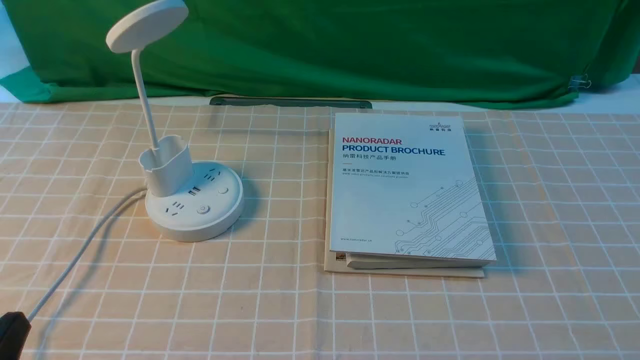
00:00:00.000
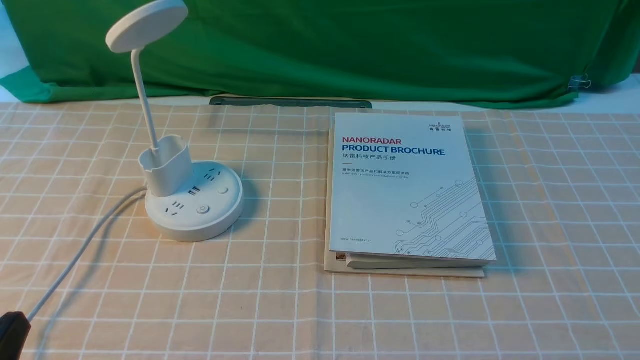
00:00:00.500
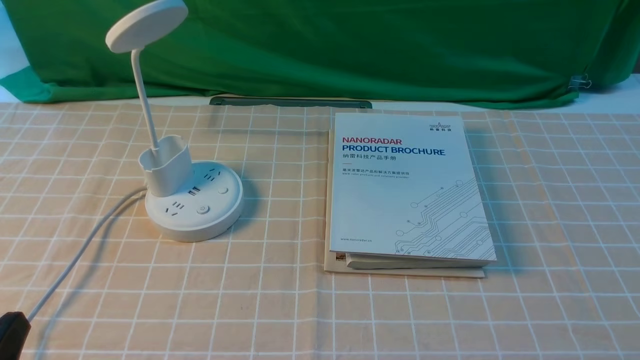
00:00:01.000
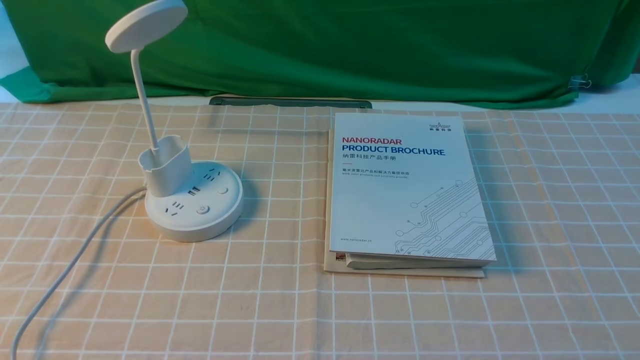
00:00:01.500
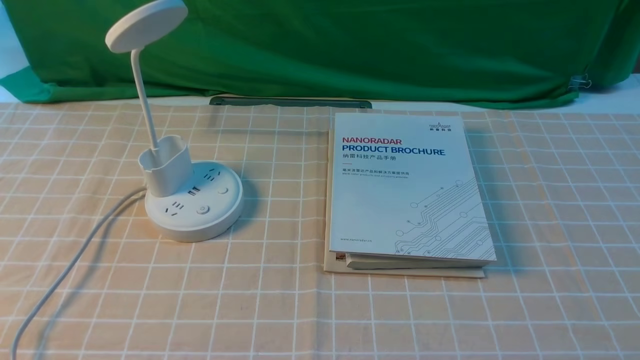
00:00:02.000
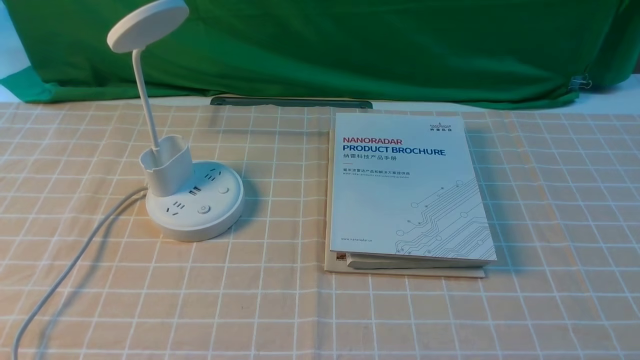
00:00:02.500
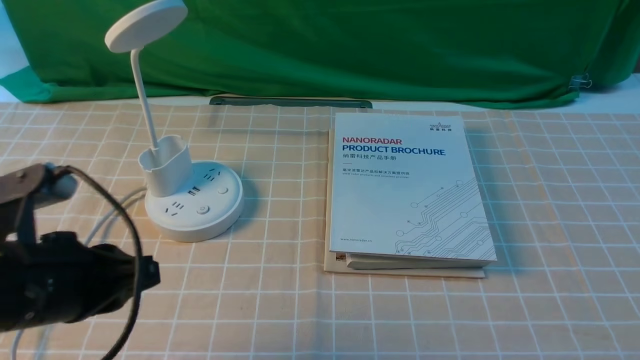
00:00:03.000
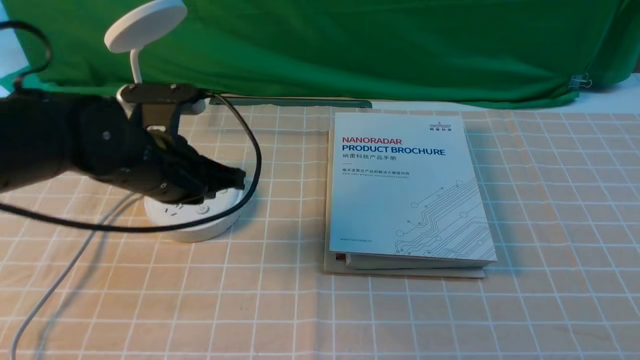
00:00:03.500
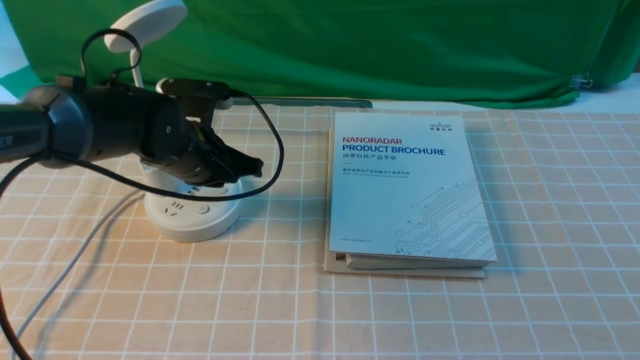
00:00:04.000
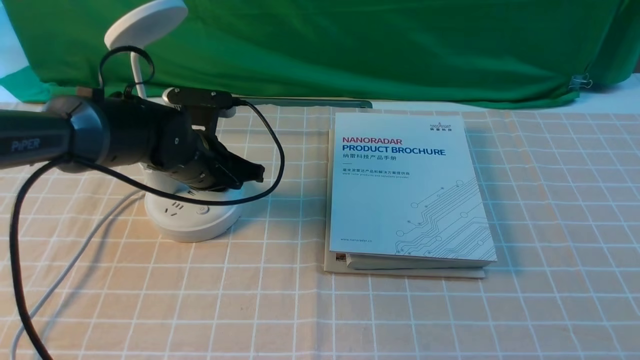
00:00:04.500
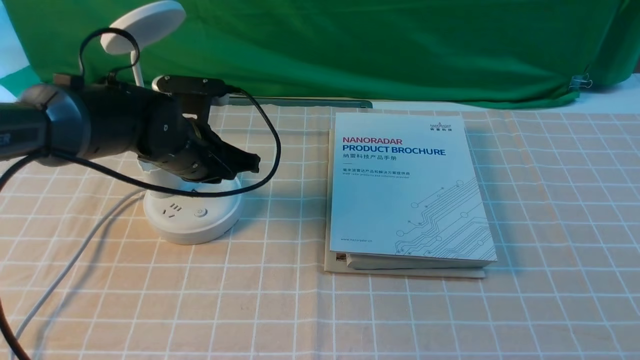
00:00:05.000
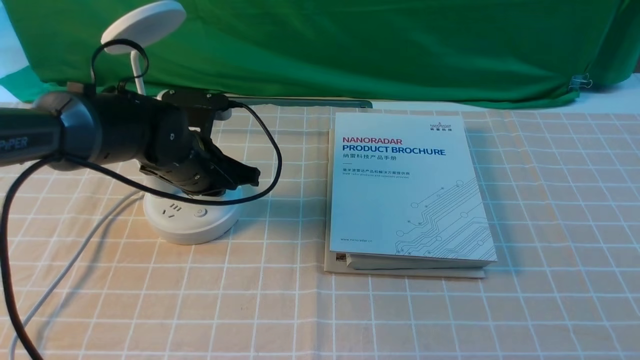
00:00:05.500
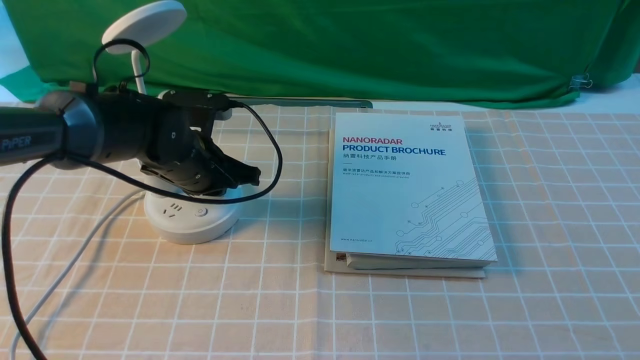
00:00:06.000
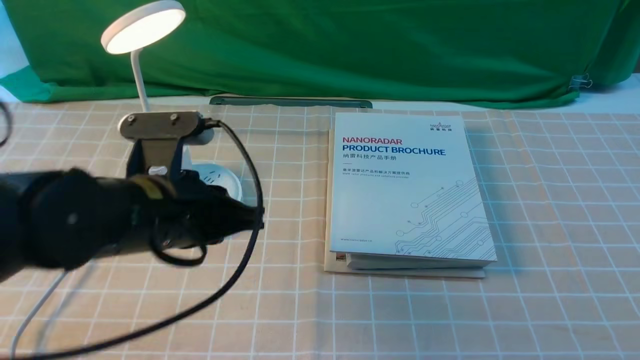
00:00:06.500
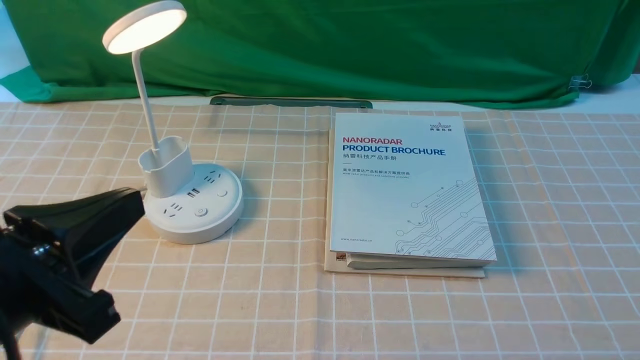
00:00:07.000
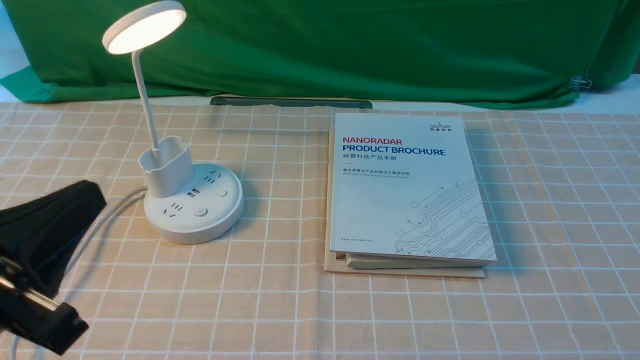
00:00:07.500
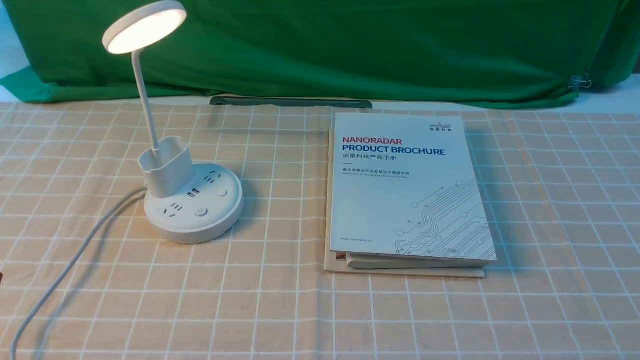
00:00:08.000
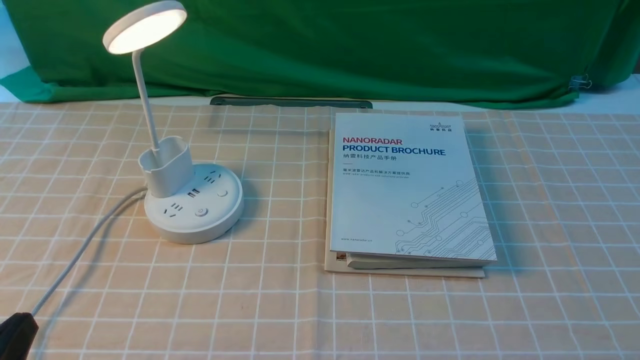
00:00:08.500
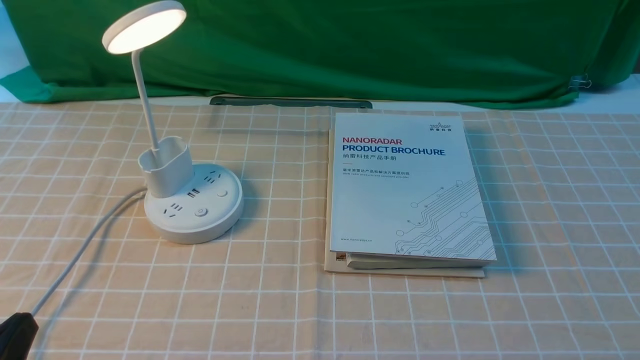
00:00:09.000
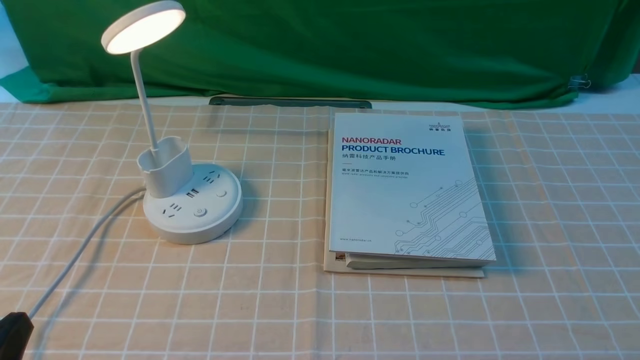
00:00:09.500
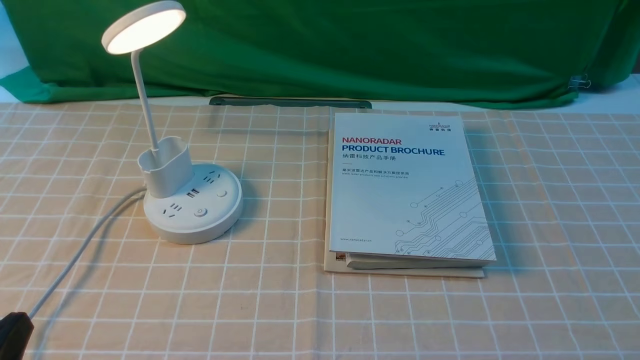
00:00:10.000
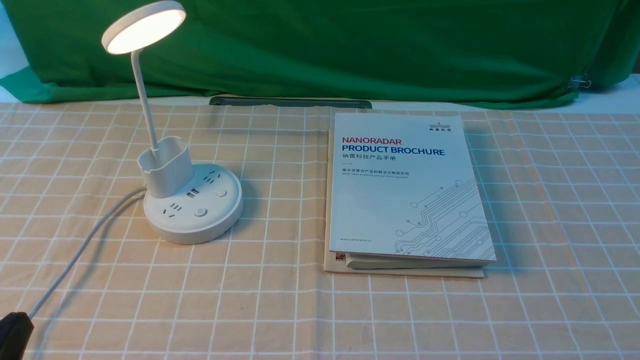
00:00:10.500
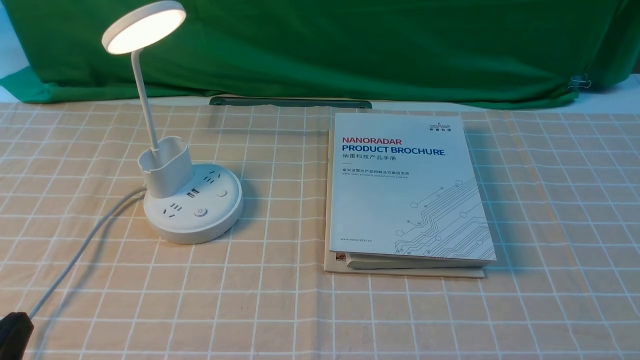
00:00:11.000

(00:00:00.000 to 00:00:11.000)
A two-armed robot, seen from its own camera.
Step, 00:00:00.000 - 00:00:06.000: use the left arm to press the button switch on the lamp holder.
00:00:02.000 - 00:00:03.500: The left gripper shifts some 30 cm forward, and closes.
00:00:03.500 - 00:00:05.500: The left gripper is displaced forward and downward by about 10 cm, and opens its fingers.
00:00:05.500 - 00:00:07.500: The left gripper travels backward by roughly 30 cm.
00:00:07.500 - 00:00:09.000: The left gripper moves downward, roughly 10 cm.
00:00:09.000 - 00:00:11.000: Neither gripper changes place.

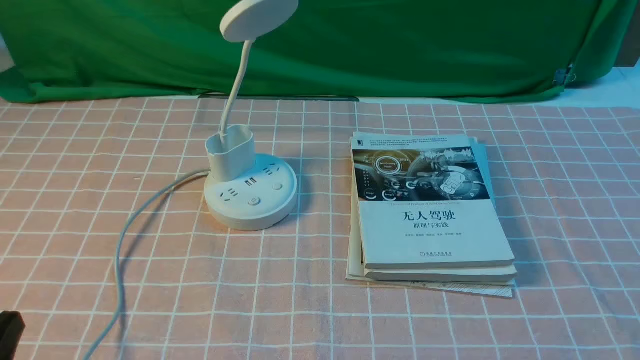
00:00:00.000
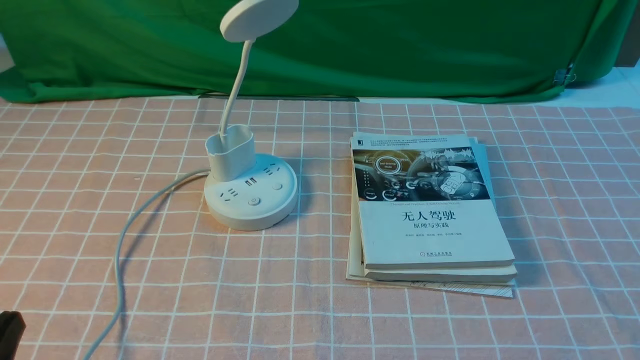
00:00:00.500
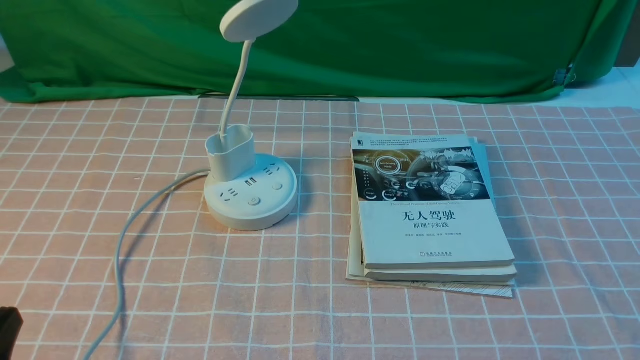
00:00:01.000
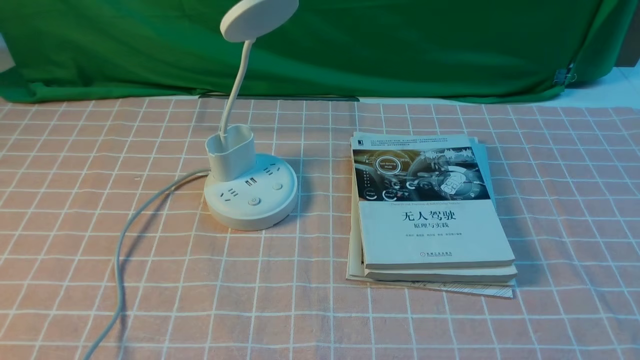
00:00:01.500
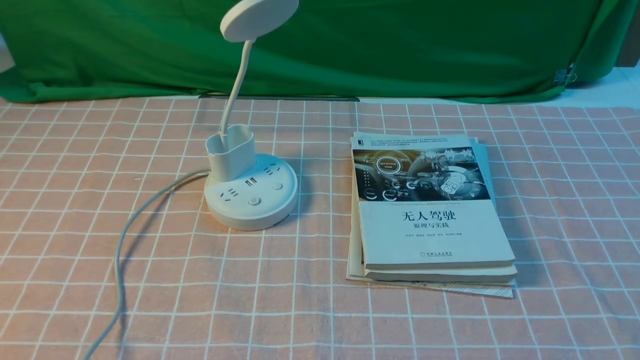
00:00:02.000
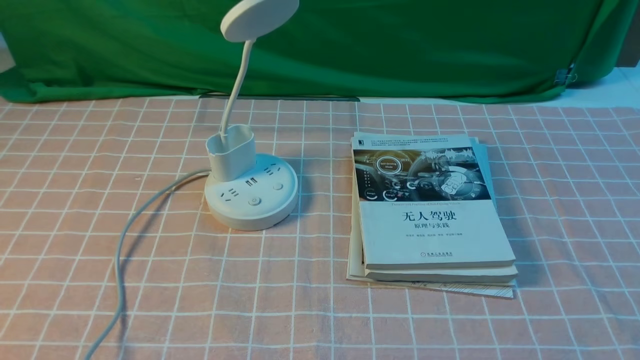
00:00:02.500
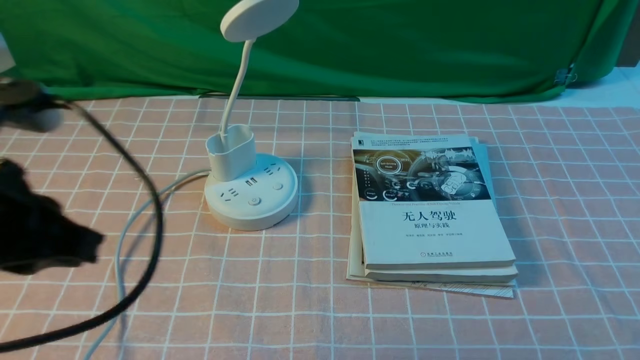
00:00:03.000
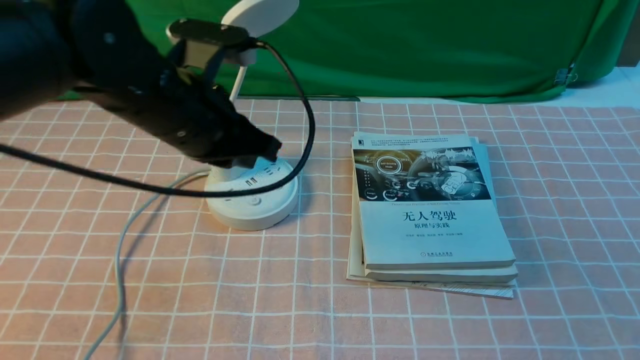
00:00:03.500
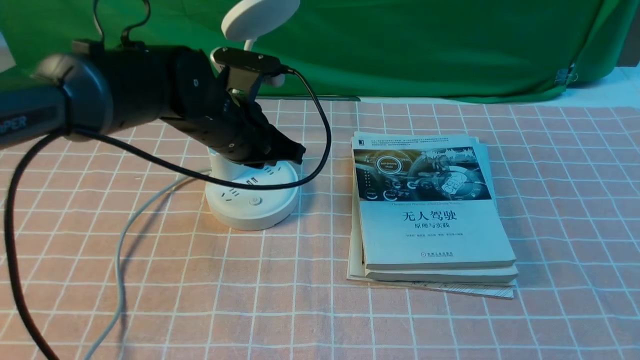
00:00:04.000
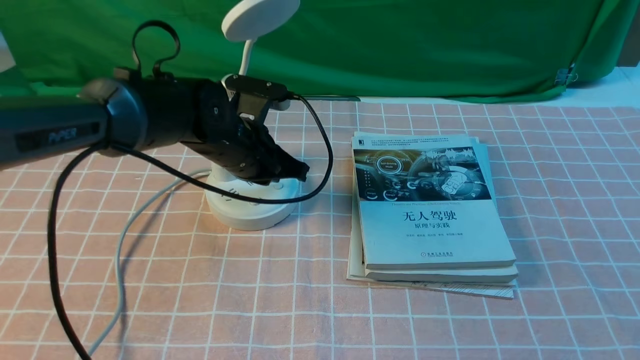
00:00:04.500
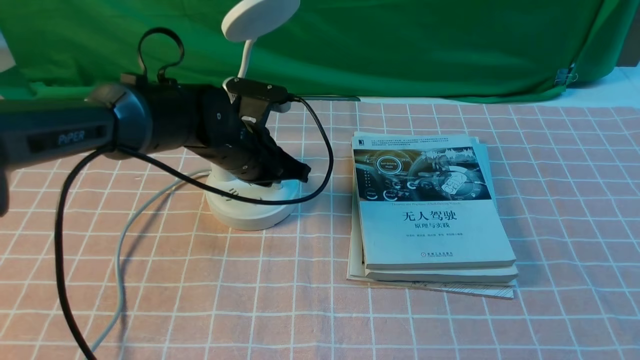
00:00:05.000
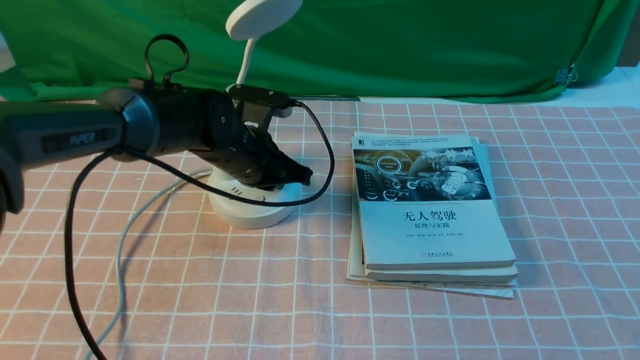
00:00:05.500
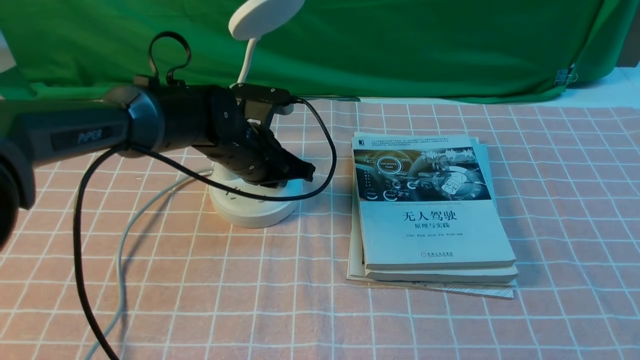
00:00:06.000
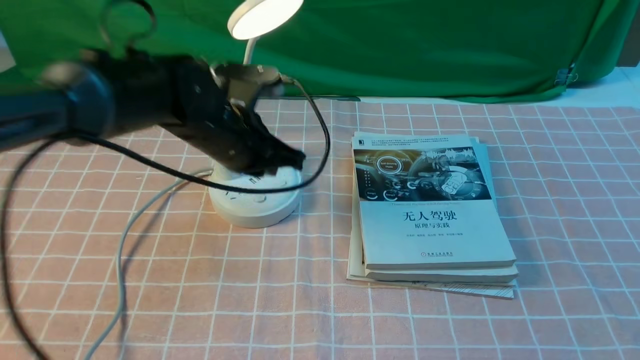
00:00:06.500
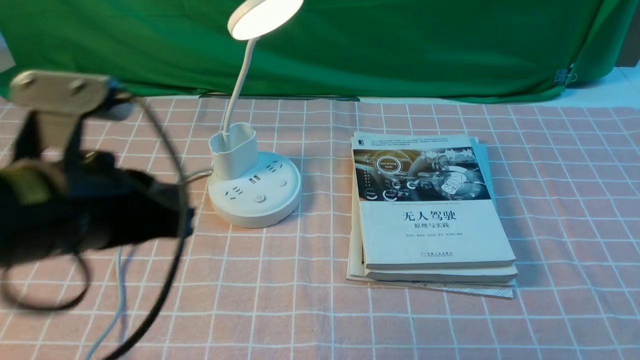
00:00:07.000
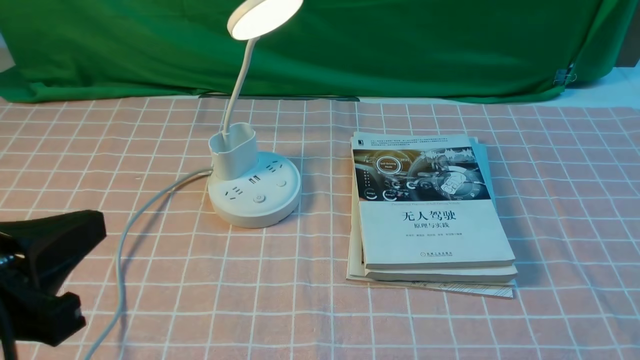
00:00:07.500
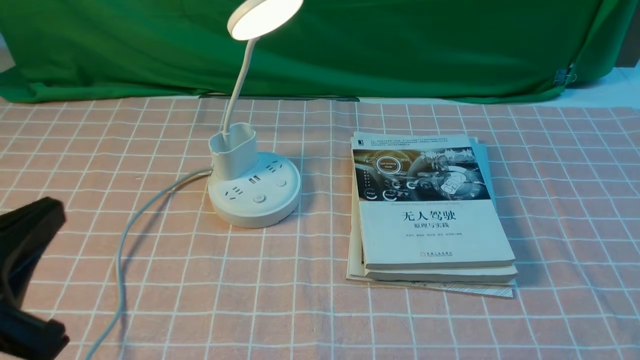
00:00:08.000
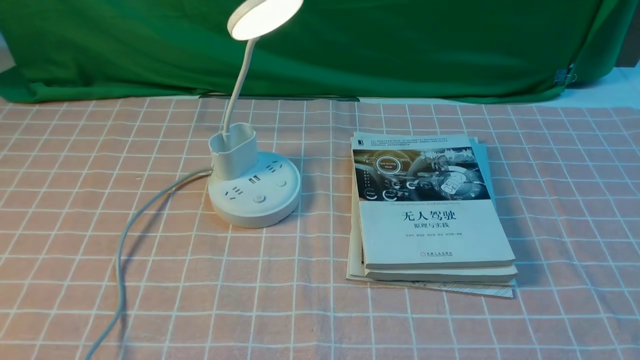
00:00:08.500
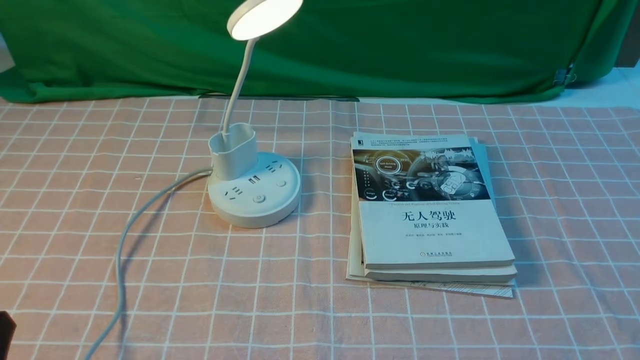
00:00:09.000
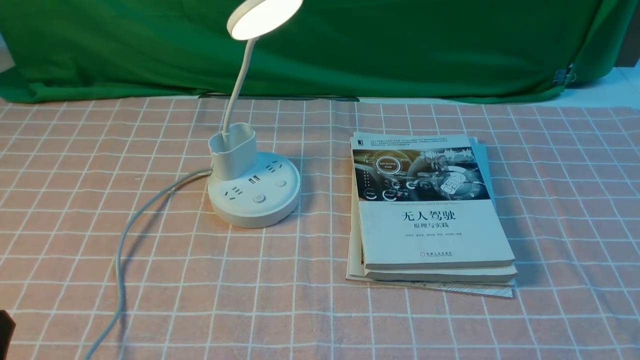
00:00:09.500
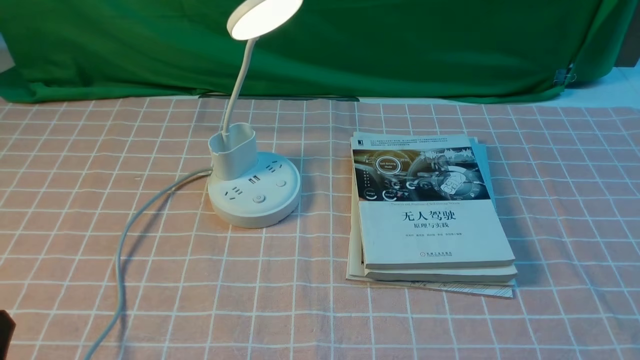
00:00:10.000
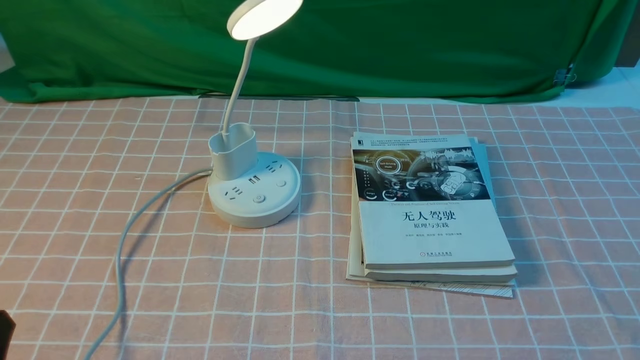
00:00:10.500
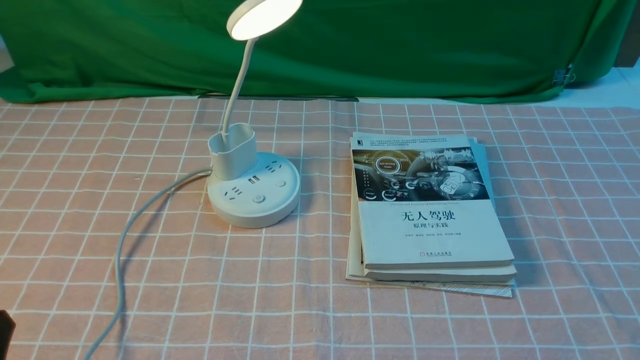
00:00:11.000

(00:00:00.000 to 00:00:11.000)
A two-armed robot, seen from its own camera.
Step, 00:00:00.000 - 00:00:06.500: use the left arm to press the button switch on the lamp holder.
00:00:02.000 - 00:00:03.500: The left gripper moves forward and to the right, approximately 30 cm.
00:00:03.500 - 00:00:05.500: The left gripper travels downward and forward by about 15 cm.
00:00:05.500 - 00:00:07.500: The left gripper heads backward, upward and to the left, covering roughly 35 cm.
00:00:07.500 - 00:00:09.000: The left gripper is displaced downward by roughly 15 cm.
00:00:09.000 - 00:00:11.000: The two grippers keep their place.
